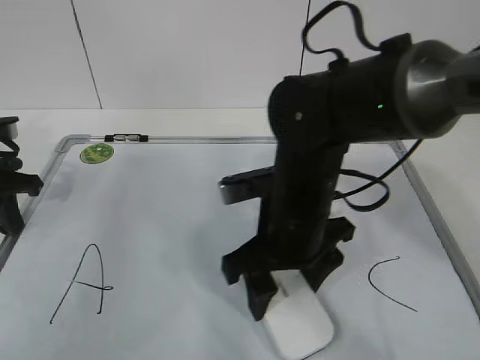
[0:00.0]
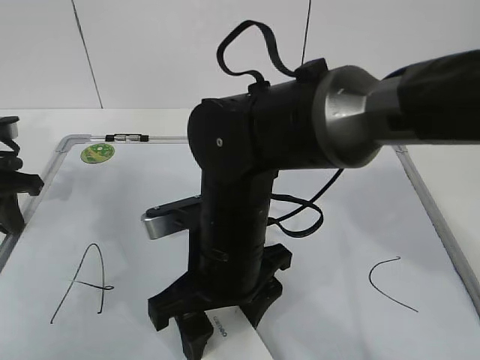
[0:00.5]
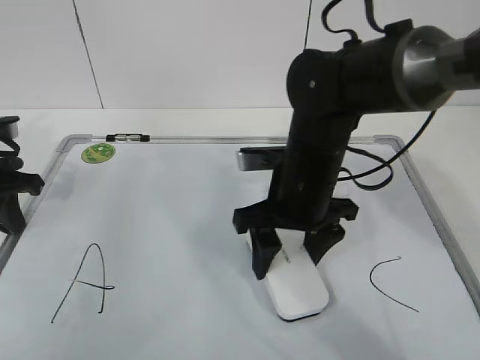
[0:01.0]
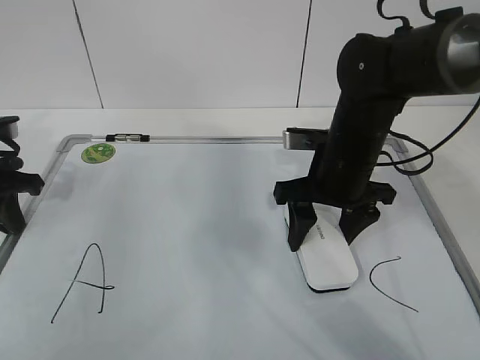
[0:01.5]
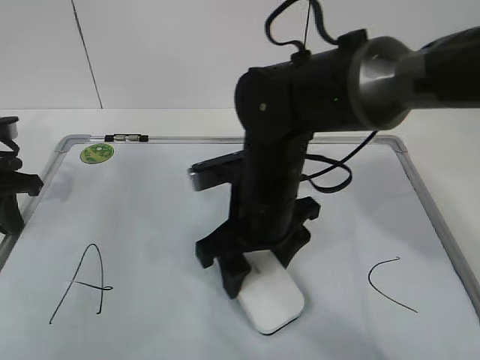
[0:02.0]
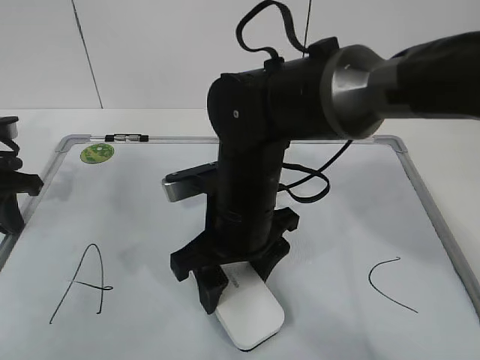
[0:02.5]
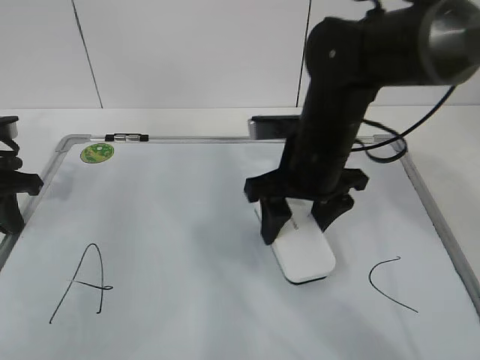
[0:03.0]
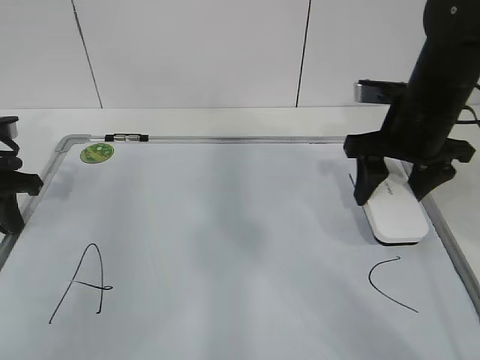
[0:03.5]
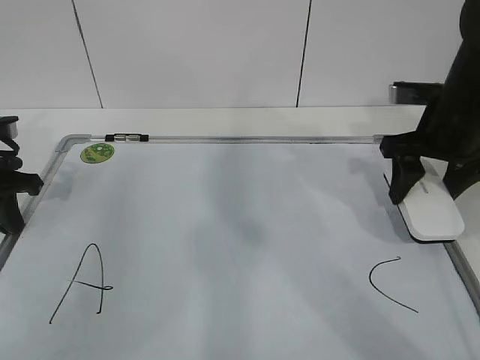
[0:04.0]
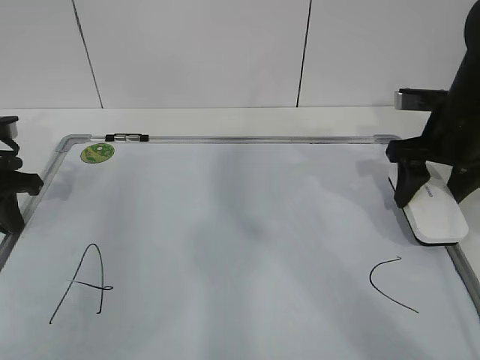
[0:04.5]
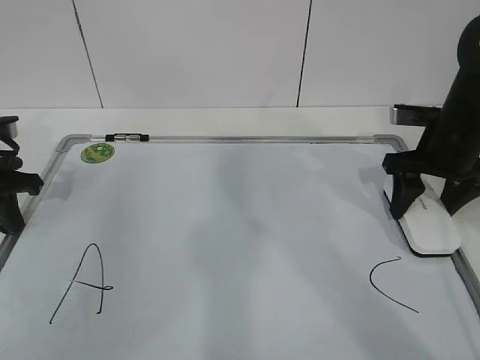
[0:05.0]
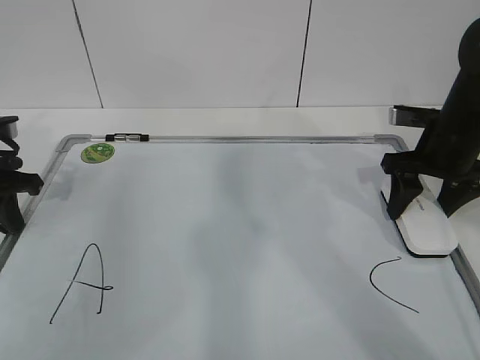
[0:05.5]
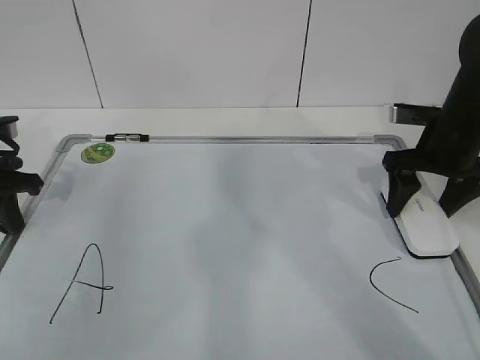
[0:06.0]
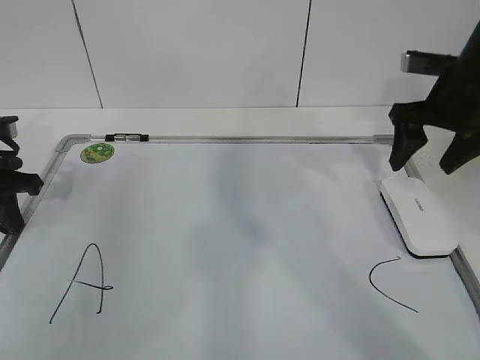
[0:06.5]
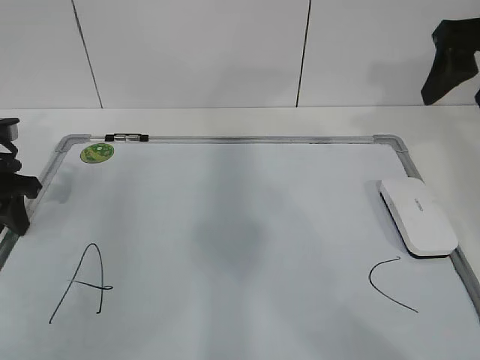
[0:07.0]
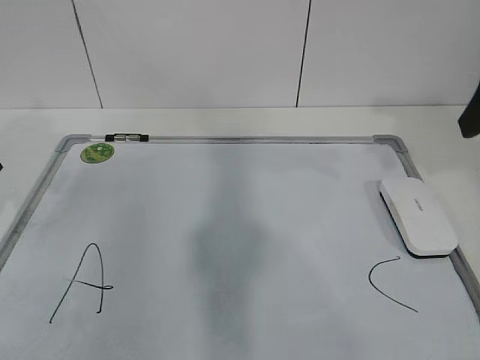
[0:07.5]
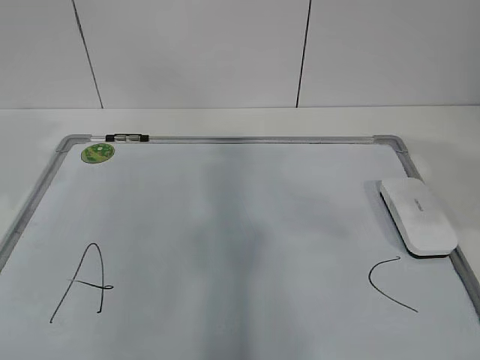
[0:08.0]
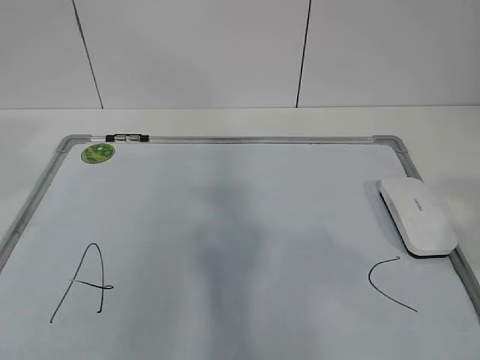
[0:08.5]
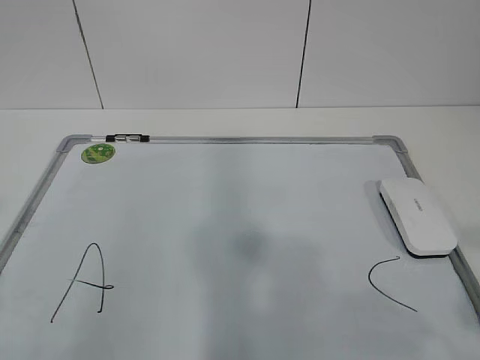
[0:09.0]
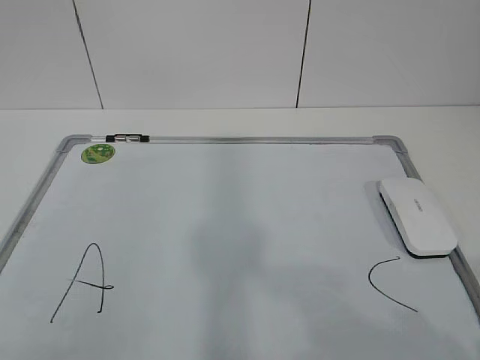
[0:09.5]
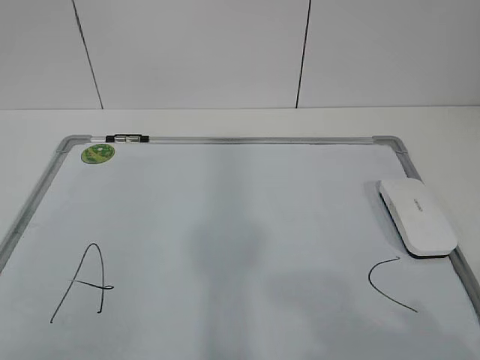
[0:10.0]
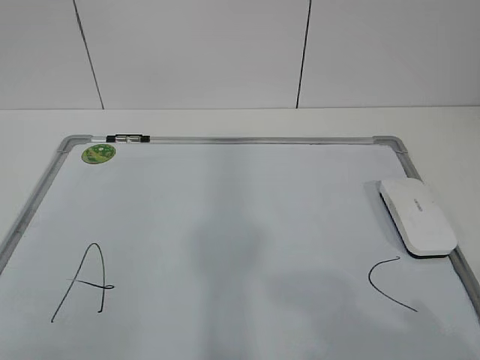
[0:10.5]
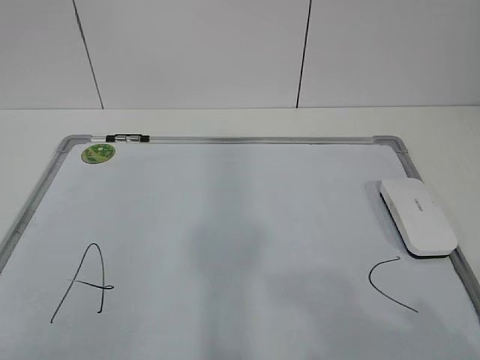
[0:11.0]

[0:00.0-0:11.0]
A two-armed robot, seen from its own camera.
Task of the whole recording: pick up the eraser on the blackboard and erase the letter "B".
Step, 0:00.5 to 0:03.0: Put down the eraser with your right hand.
0:00.0 to 0:02.0: The right gripper swings left and right, about 15 cm each way, with 2 reversals.
0:02.0 to 0:03.5: The right gripper is displaced to the right and forward by some 20 cm.
0:03.5 to 0:05.5: The right gripper shifts roughly 5 cm to the right.
0:05.5 to 0:07.5: The right gripper shifts some 20 cm upward and backward, and opens its fingers. Meanwhile the left gripper heads upward, covering roughly 5 cm, and opens its fingers.
0:07.5 to 0:09.0: The right gripper heads backward, covering some 25 cm.
